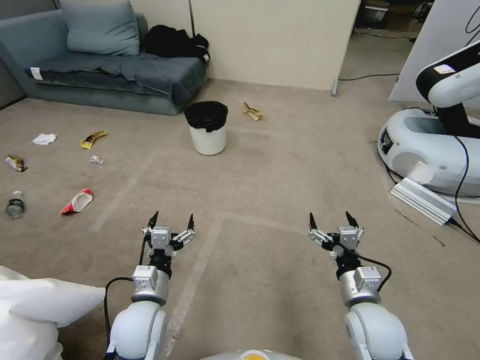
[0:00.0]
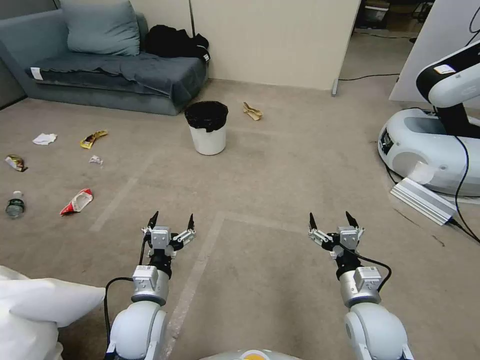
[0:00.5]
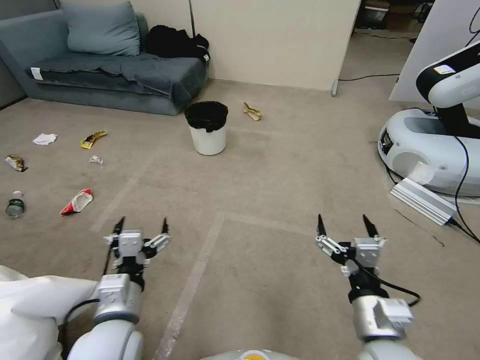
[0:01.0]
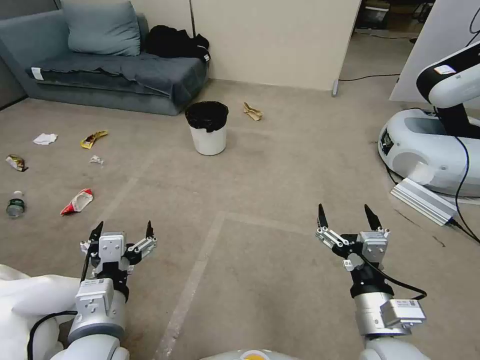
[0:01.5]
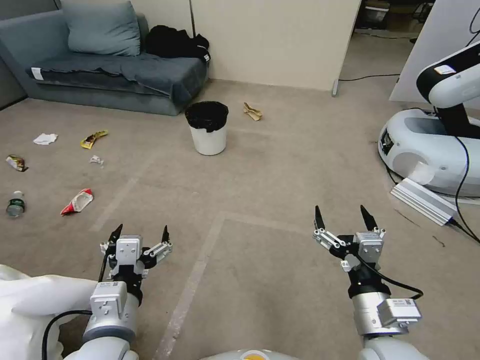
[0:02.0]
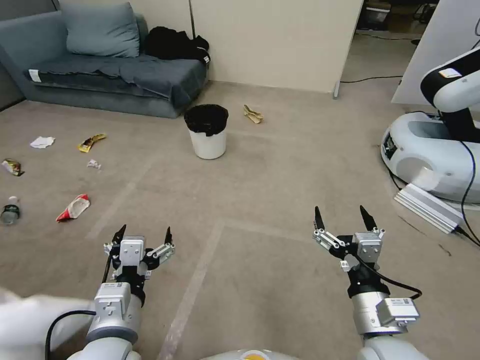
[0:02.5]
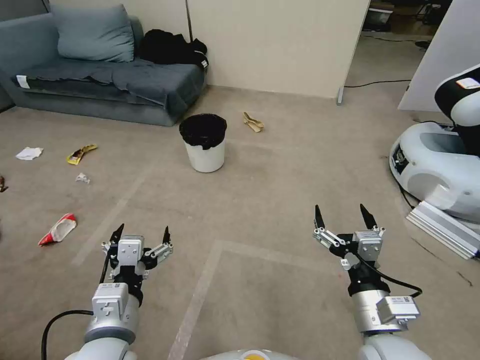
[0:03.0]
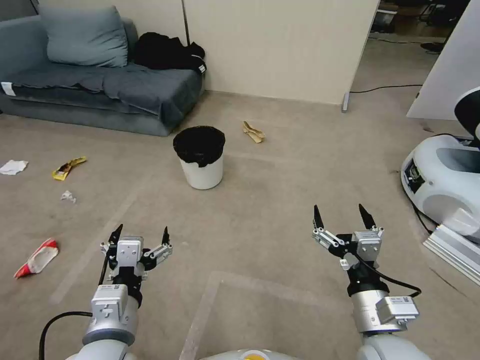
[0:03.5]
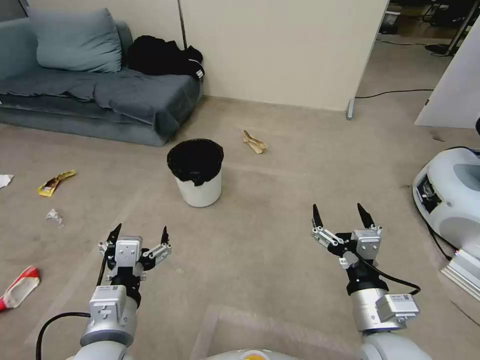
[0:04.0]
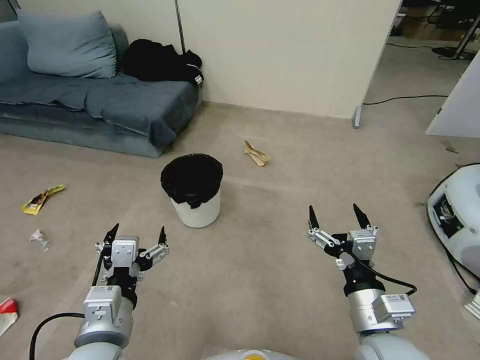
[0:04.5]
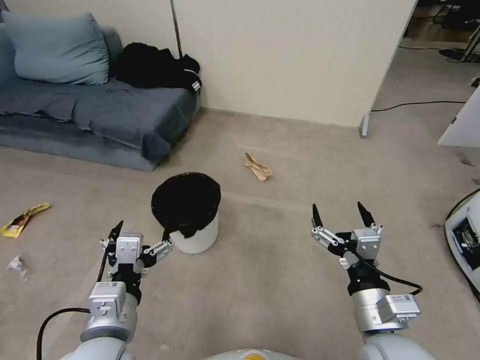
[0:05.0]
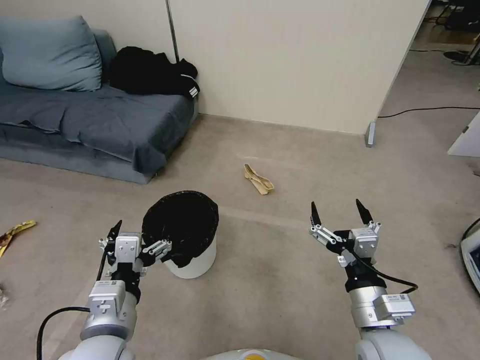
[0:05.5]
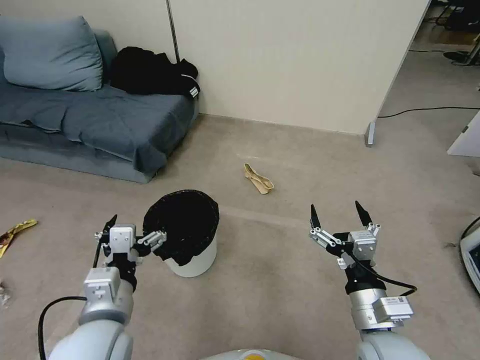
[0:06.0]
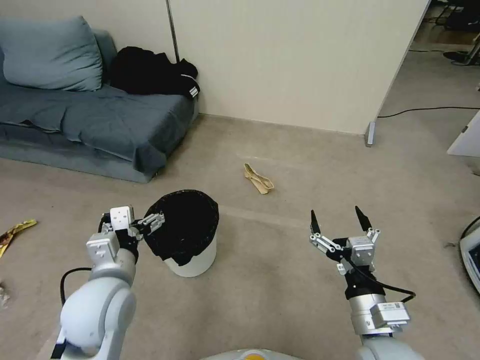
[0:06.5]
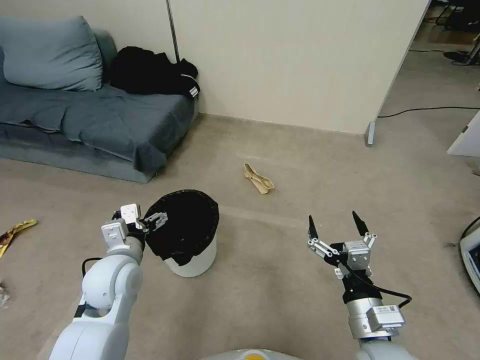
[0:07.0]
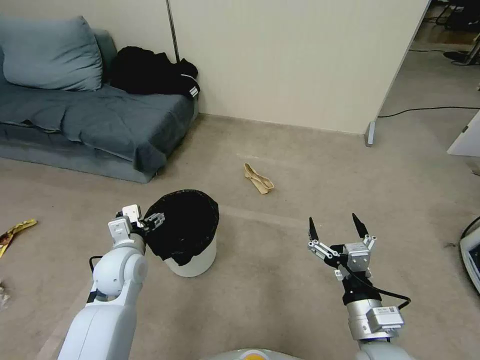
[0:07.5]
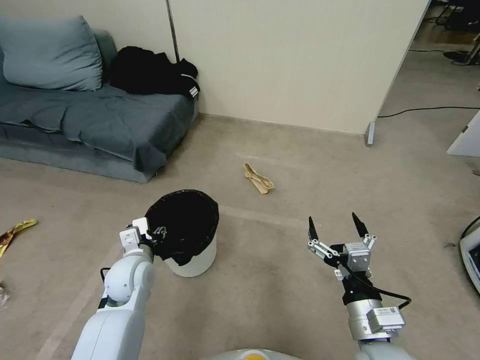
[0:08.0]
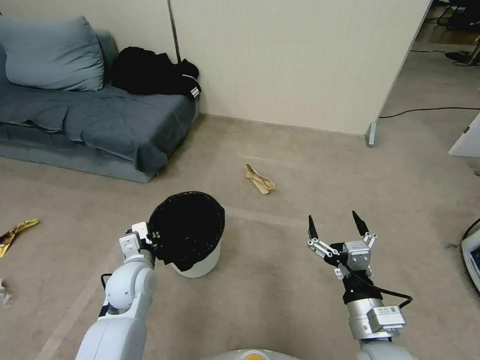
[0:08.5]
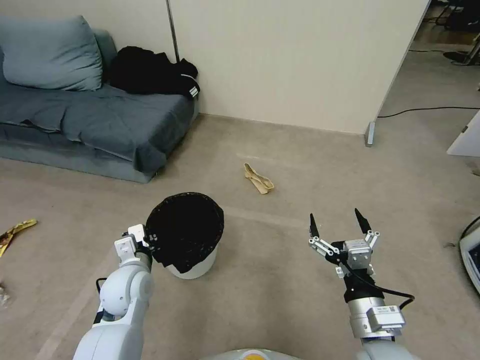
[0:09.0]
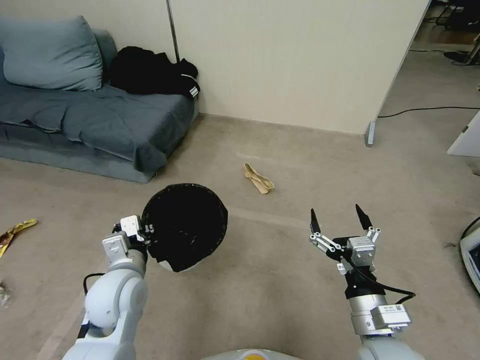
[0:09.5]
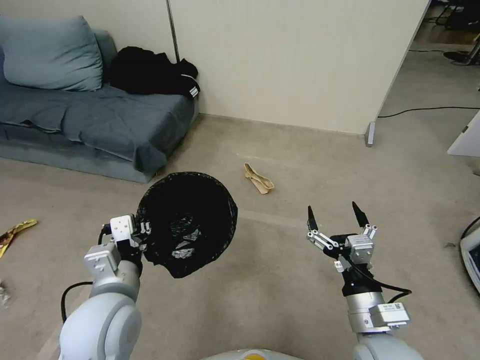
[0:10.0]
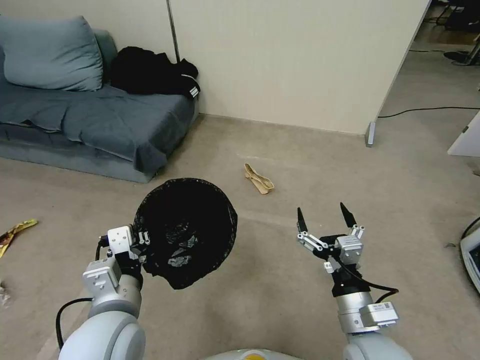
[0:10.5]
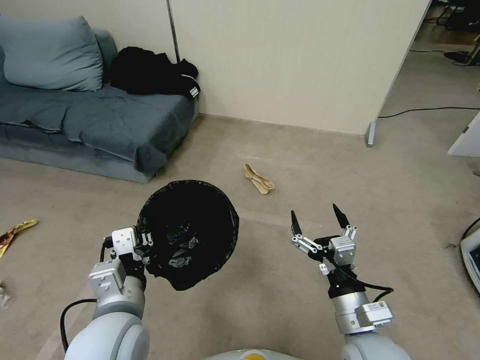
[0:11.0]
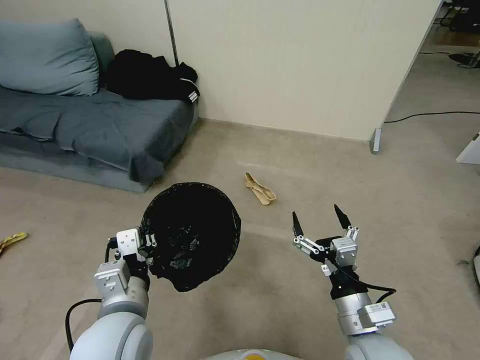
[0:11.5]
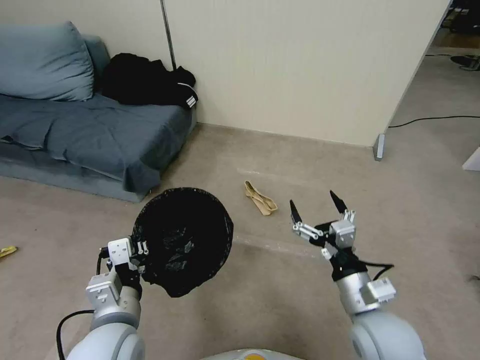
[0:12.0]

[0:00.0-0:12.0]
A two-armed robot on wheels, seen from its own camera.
Task of the whole recording: Pick up the trash bin, then pick up the garbage from the floor and place it into the trash bin.
0:06.0 to 0:08.0: The left gripper shifts about 20 cm forward and downward, and closes up.
0:08.0 to 0:10.0: The left gripper goes about 15 cm upward and backward, and closes up.

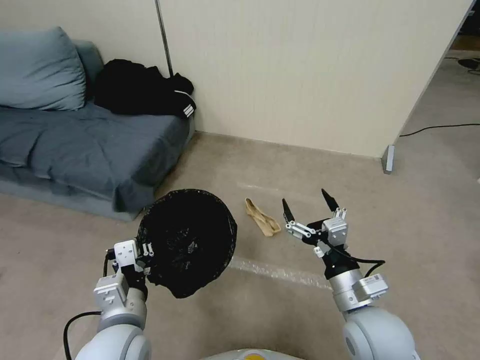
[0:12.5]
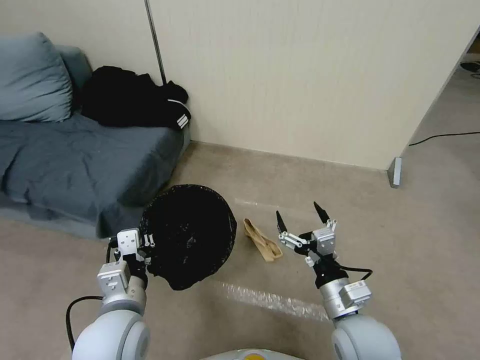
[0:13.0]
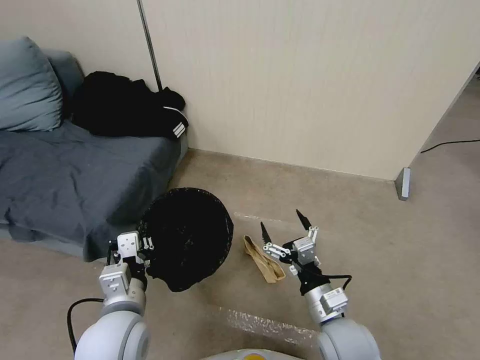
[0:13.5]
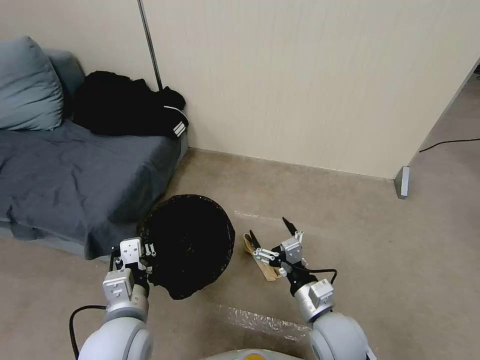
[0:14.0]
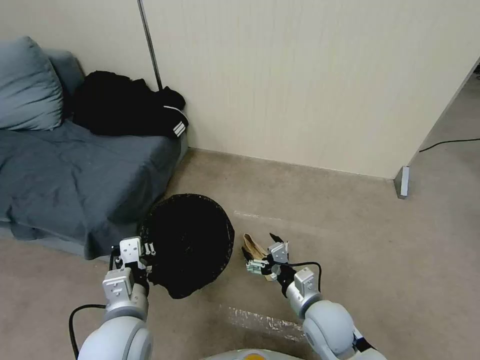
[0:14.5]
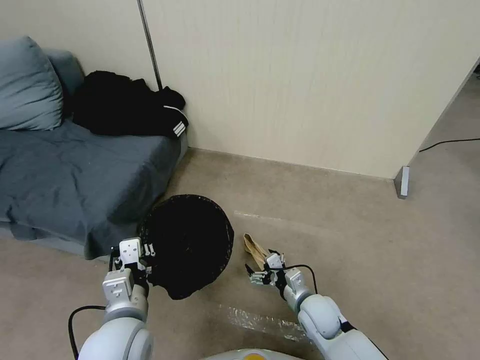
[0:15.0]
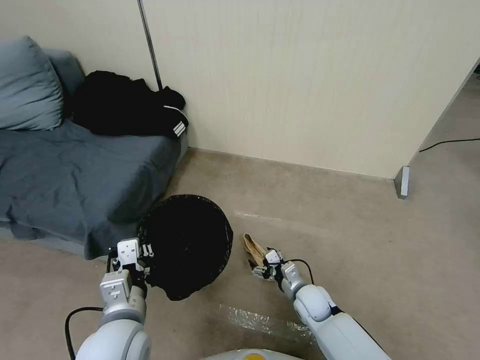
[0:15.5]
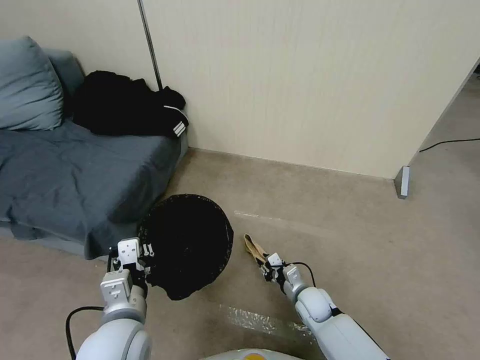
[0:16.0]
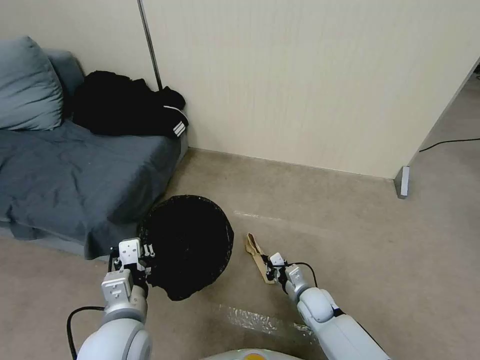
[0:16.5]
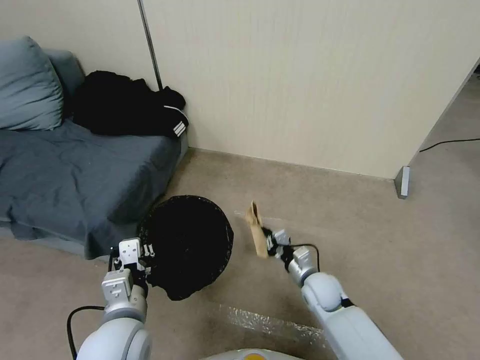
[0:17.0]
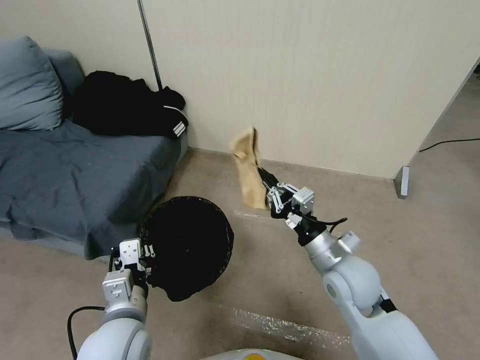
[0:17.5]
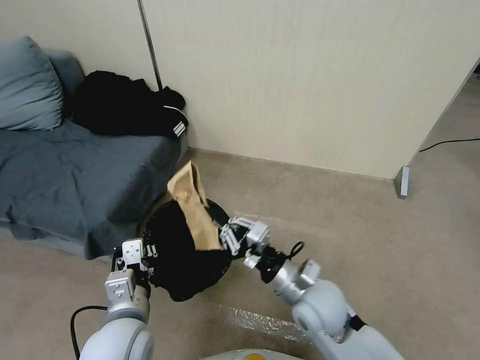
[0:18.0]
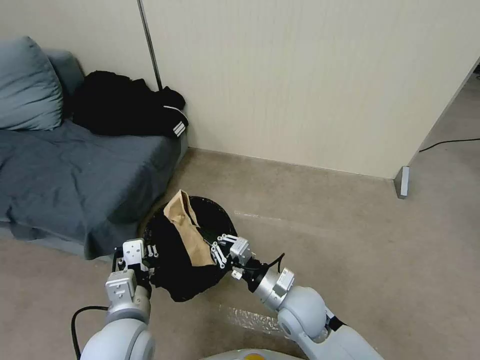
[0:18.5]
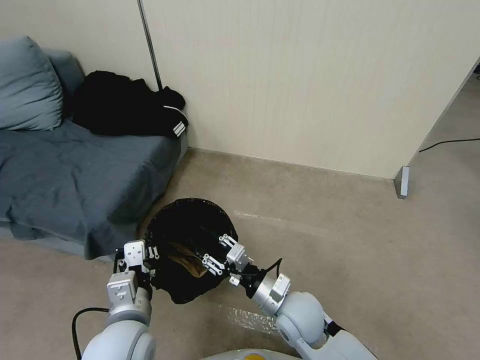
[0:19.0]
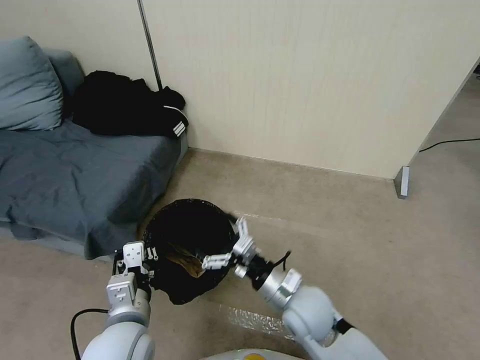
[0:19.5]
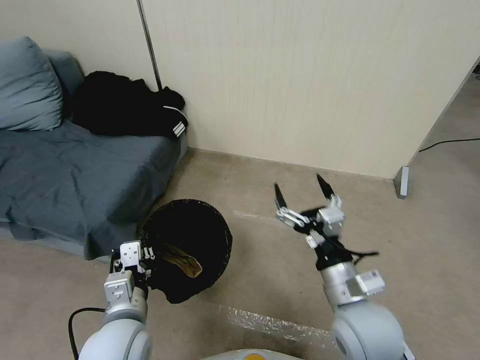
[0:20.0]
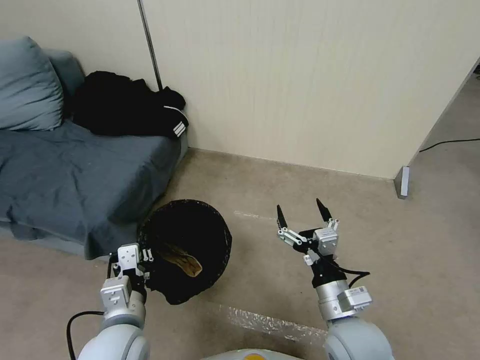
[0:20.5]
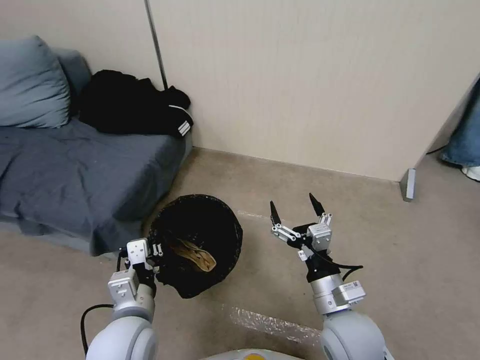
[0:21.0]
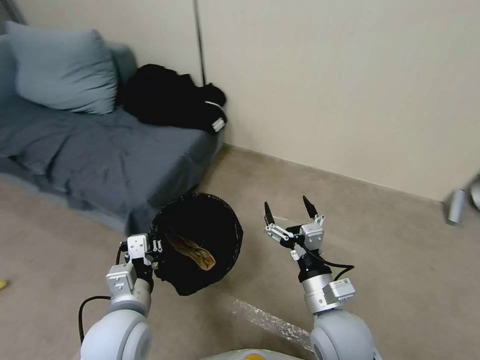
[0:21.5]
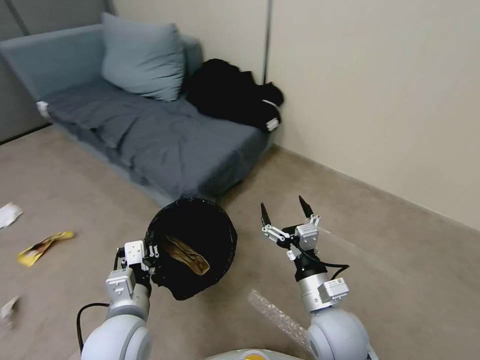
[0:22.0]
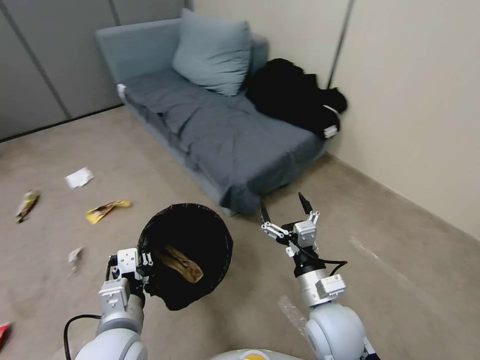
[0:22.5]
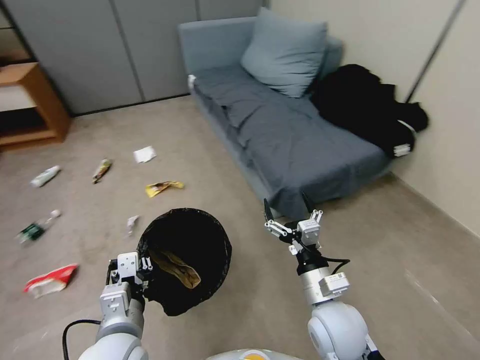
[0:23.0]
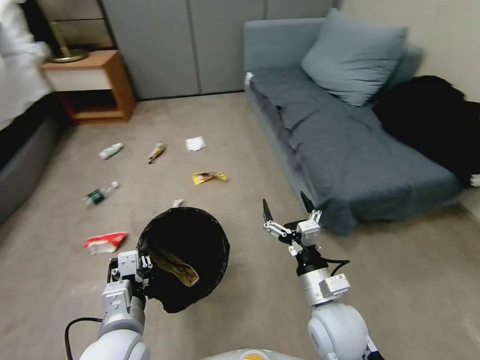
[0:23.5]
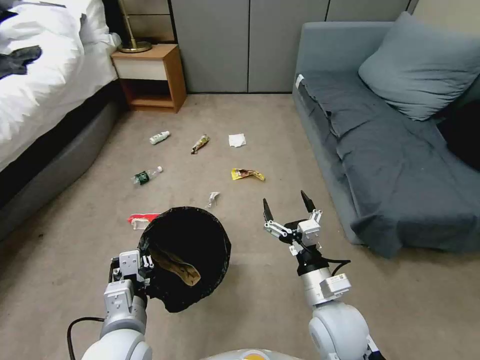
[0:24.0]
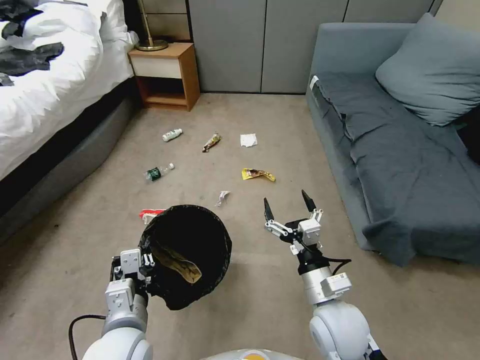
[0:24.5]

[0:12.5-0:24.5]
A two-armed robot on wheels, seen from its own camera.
Task of the whole recording: Pick up the trash bin, then pick up the garbage from the floor and place it into the trash bin.
0:12.5 to 0:14.5: The right gripper is displaced downward by roughly 10 cm.
0:14.5 to 0:16.5: The right gripper shifts roughly 15 cm downward and forward, and closes up.
0:16.5 to 0:18.5: The right gripper shifts roughly 20 cm upward and to the left.
0:18.5 to 0:20.5: The right gripper moves to the right, backward and upward, some 10 cm, and opens up.

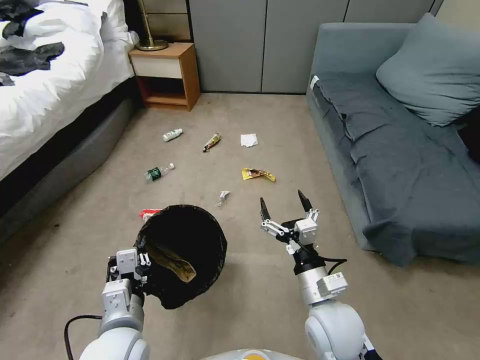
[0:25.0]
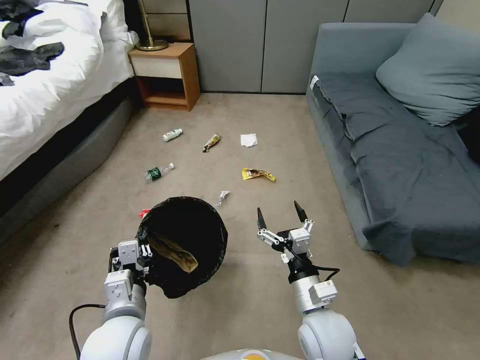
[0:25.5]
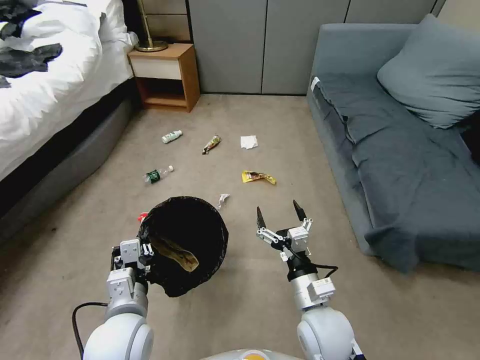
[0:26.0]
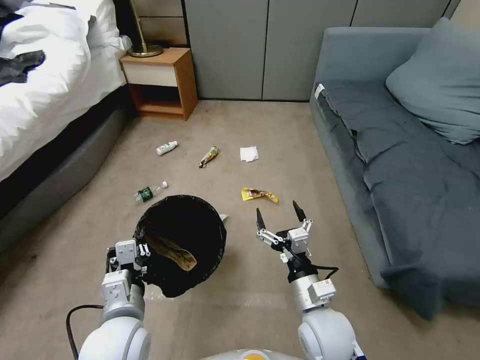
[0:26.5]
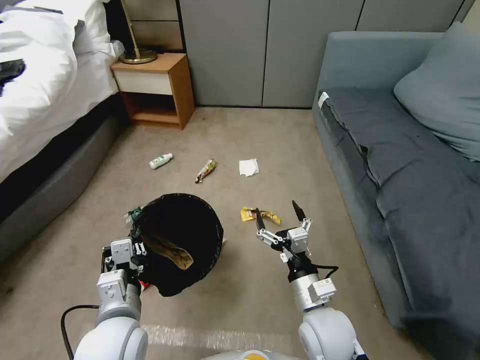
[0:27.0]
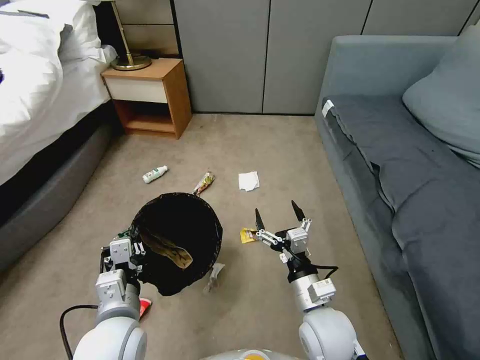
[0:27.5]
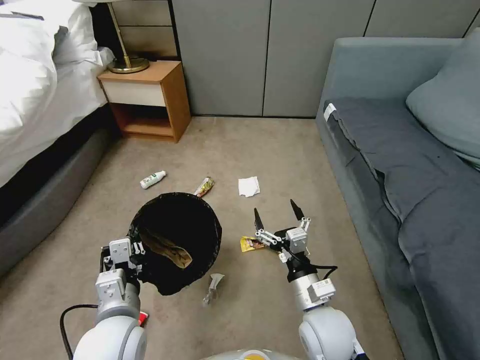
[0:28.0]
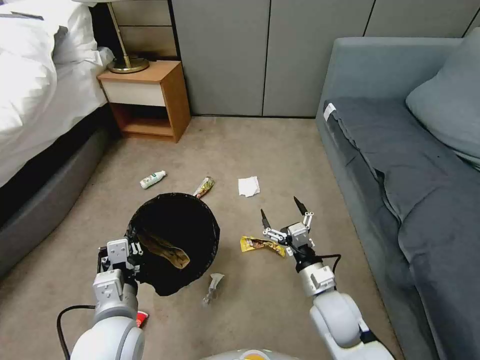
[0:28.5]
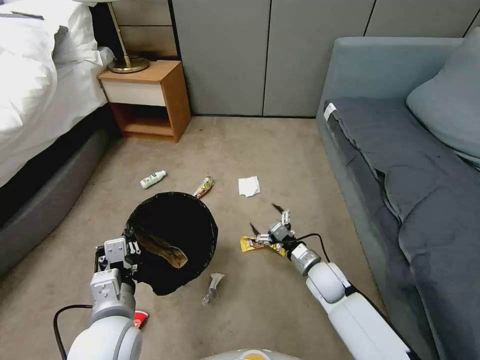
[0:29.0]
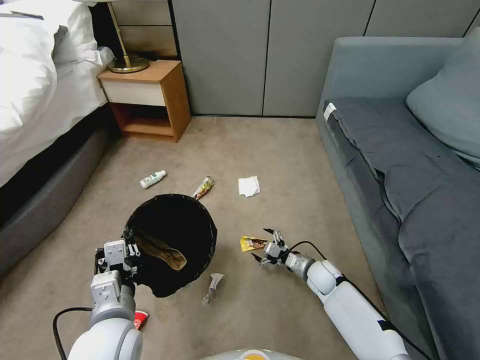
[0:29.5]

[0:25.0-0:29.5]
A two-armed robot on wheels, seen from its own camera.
Task of the whole recording: Pick up the trash bin, then pick up the garbage from the floor and place it into the trash bin.
0:27.0 to 0:29.5: The right gripper travels downward, forward and to the right by some 25 cm.
